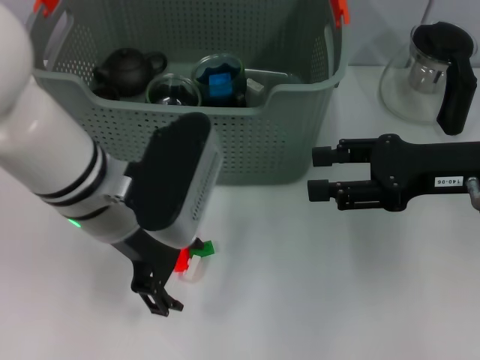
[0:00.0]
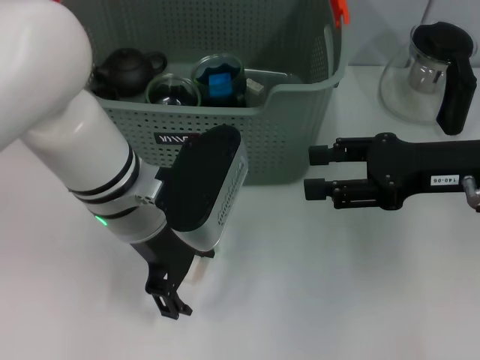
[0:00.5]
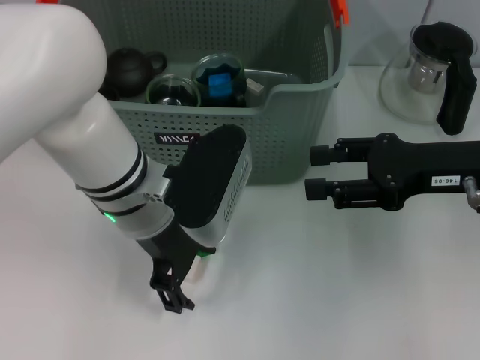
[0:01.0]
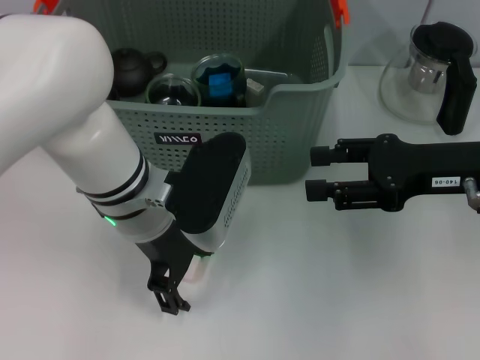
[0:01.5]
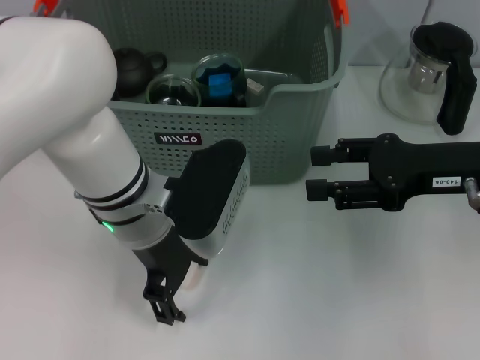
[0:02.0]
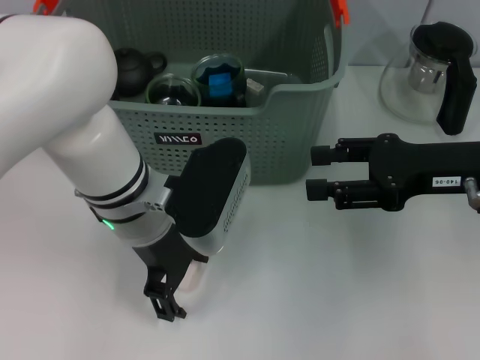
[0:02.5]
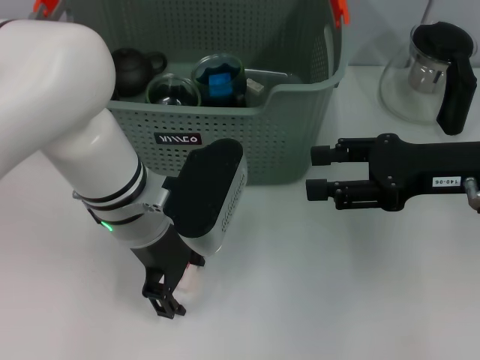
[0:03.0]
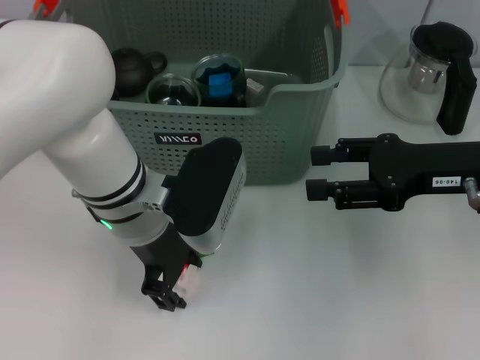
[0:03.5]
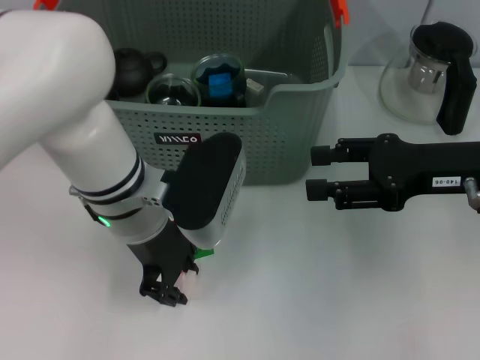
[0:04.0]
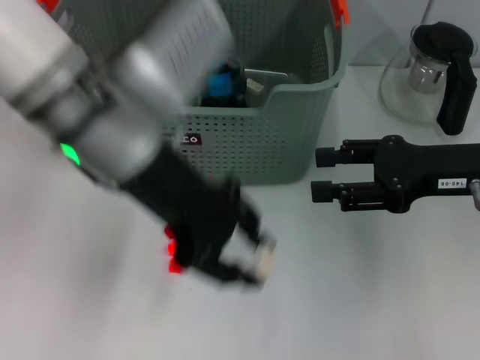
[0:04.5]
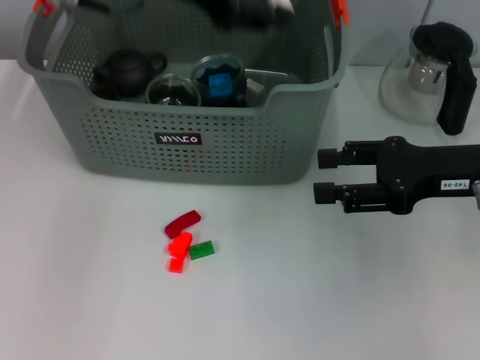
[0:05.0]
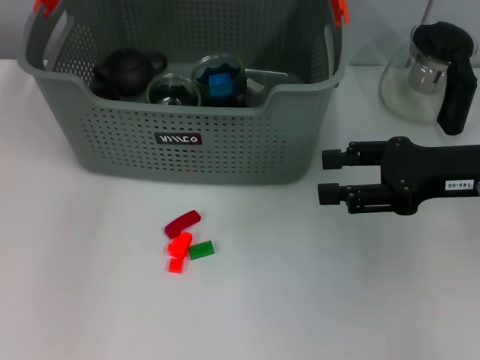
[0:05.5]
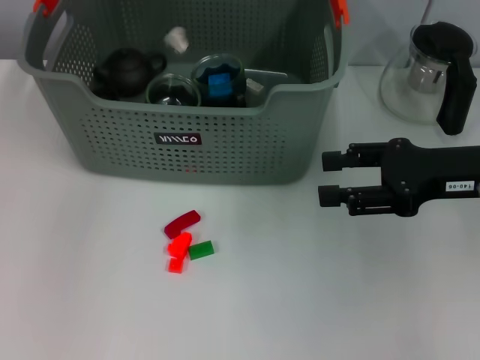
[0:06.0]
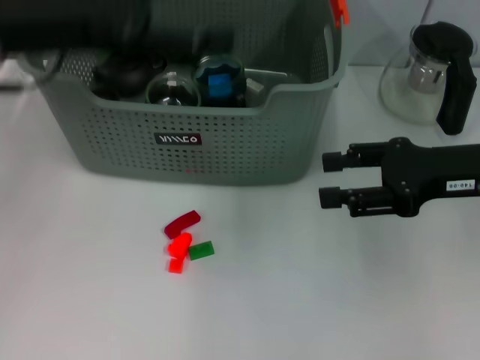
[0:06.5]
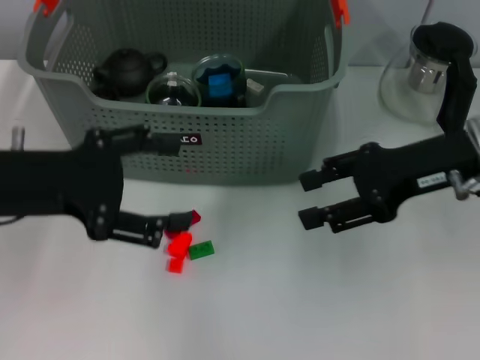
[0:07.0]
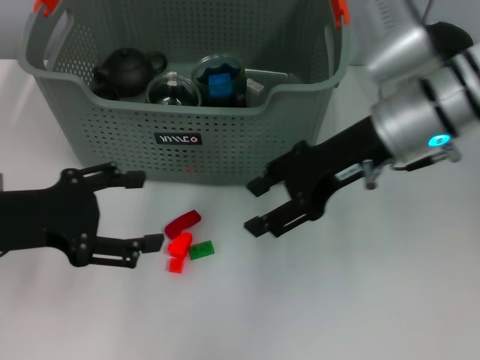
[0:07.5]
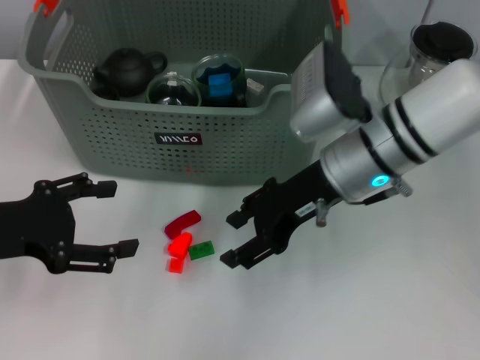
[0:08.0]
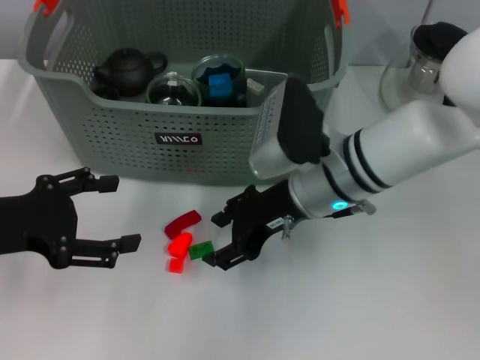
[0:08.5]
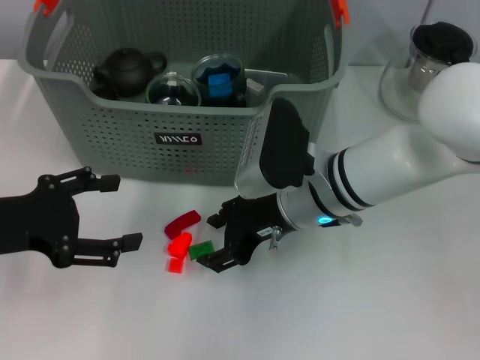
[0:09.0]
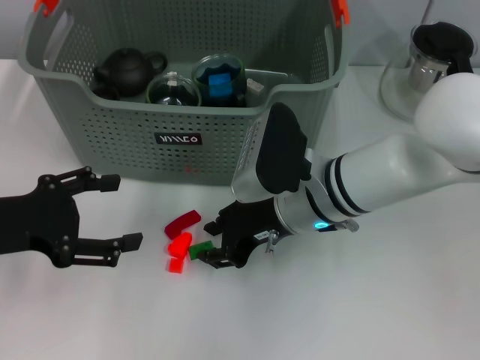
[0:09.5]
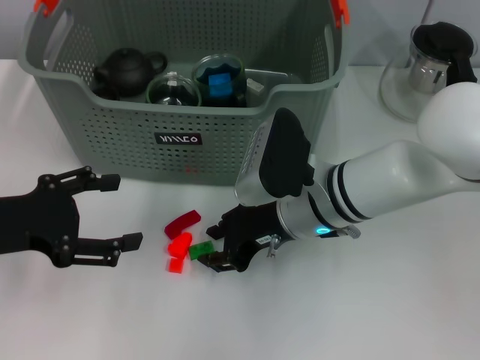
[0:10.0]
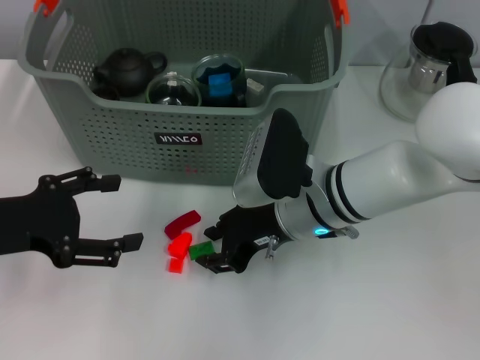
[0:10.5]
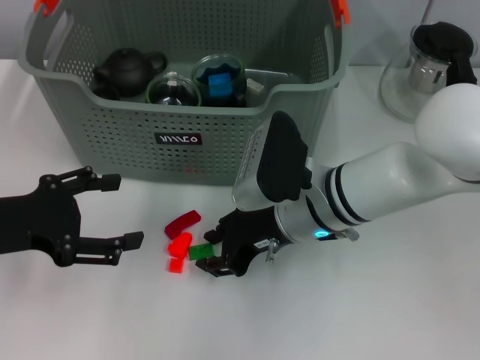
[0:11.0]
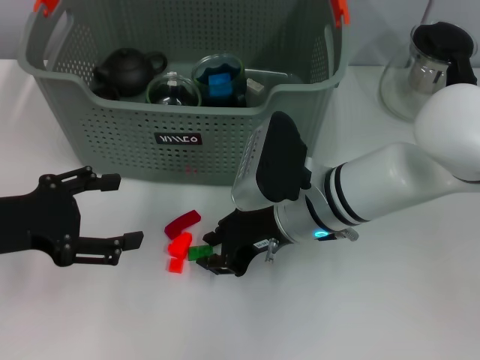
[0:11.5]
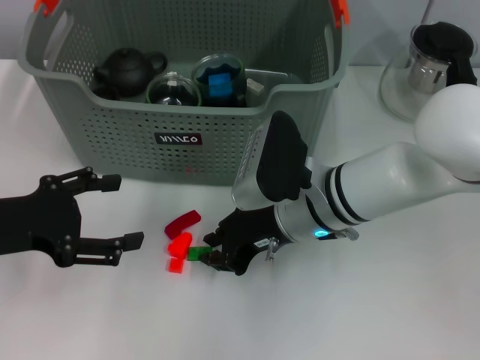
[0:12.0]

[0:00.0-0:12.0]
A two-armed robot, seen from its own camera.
Task of the whole recording: pick up the teacup on the table and place it into the storage bin, pick up the block on the table and place it into the storage bin.
Step, 0:00.0 to 0:03.5: Grasp the white block with left gripper.
Step, 0:04.0 to 0:06.0: Place the white block in the storage box with left gripper.
0:00.0 to 0:02.0: There are only small adjustments of the grippers.
0:02.0 to 0:04.0: The left gripper closes.
0:04.0 to 0:06.0: The left gripper moves upward, forward and to the left, approximately 20 cm.
0:06.0 to 0:08.0: The left gripper travels backward, downward and to the left by some 30 cm. The right gripper travels to the left by some 15 cm.
0:08.0 to 0:10.0: The right gripper shifts roughly 5 cm downward.
0:10.0 to 0:12.0: The two grippers keep their place.

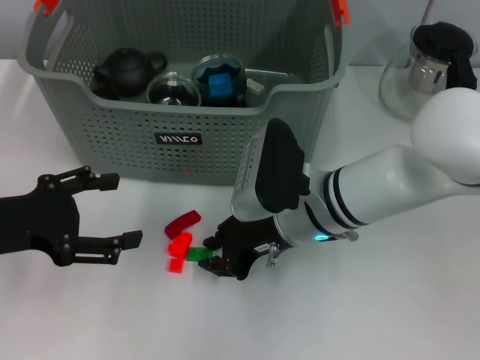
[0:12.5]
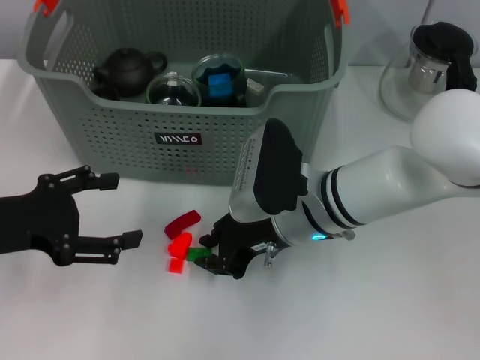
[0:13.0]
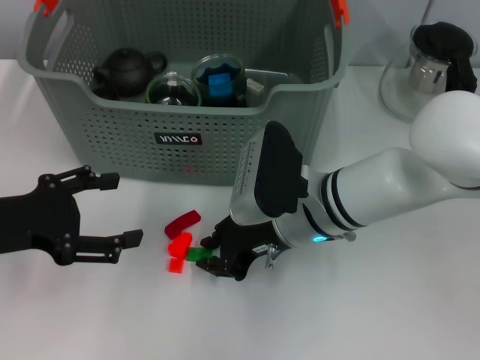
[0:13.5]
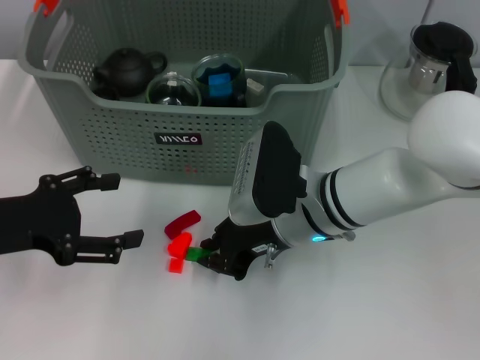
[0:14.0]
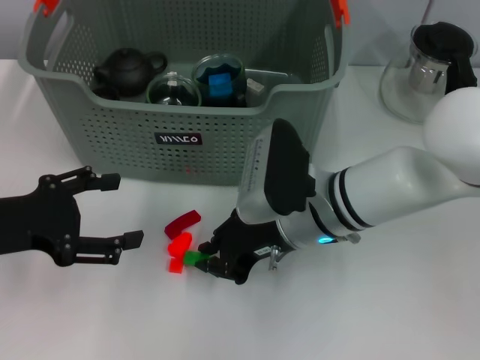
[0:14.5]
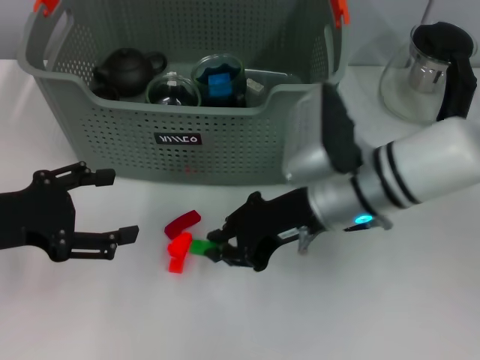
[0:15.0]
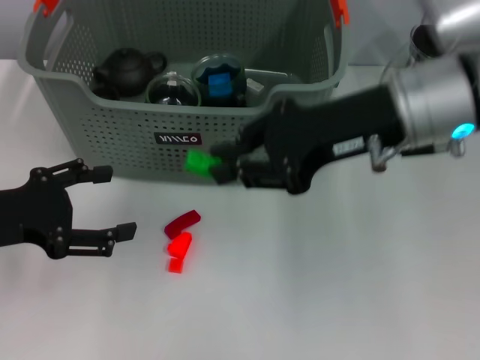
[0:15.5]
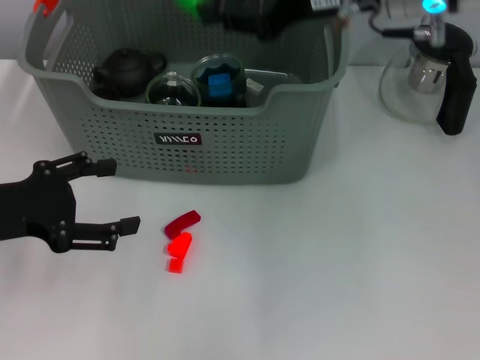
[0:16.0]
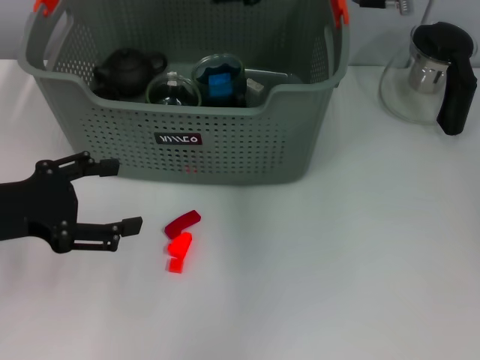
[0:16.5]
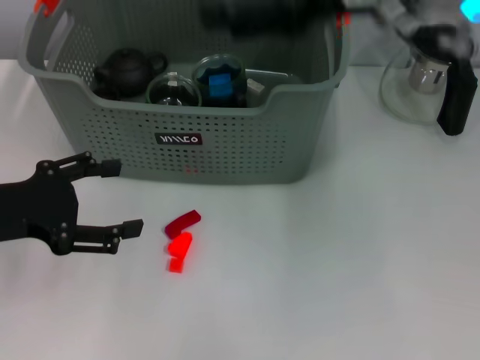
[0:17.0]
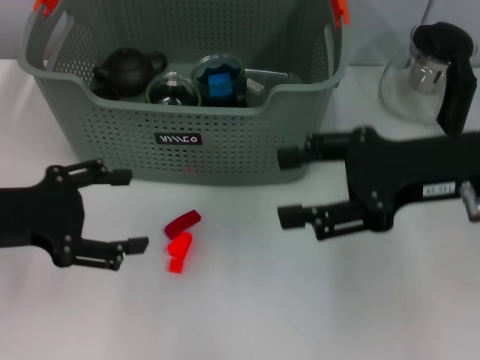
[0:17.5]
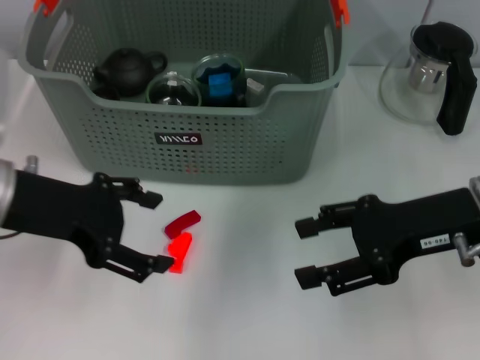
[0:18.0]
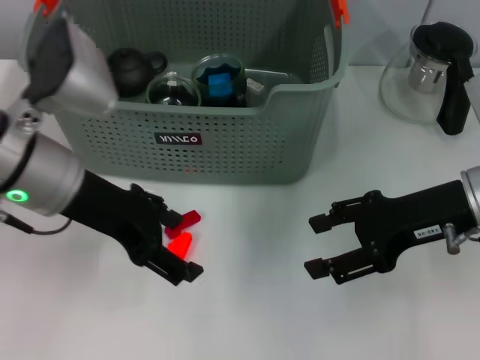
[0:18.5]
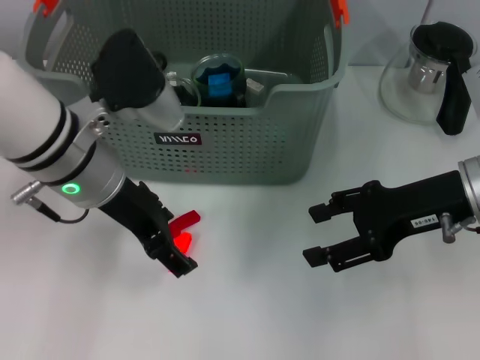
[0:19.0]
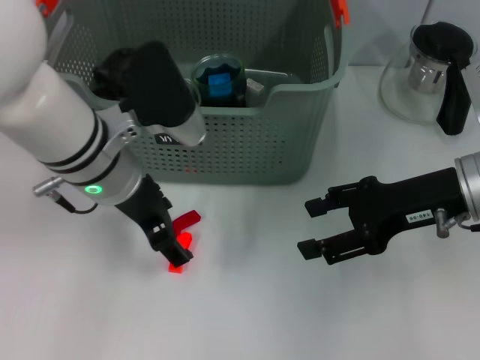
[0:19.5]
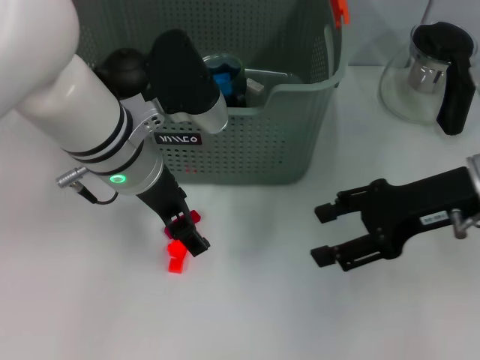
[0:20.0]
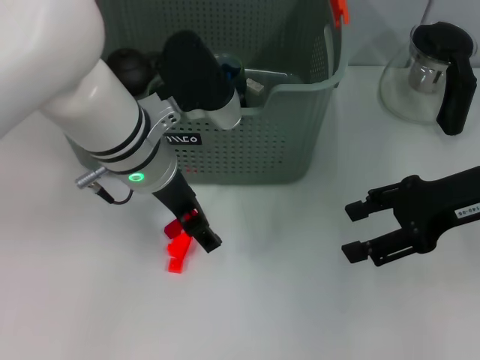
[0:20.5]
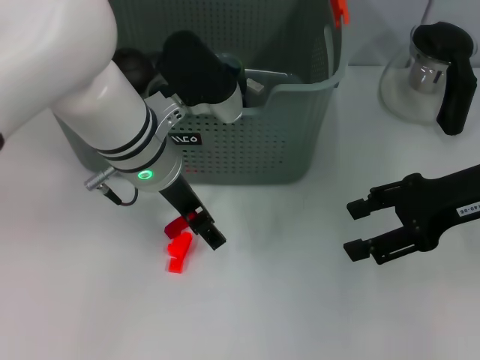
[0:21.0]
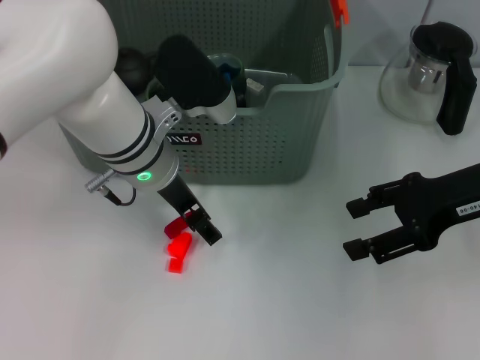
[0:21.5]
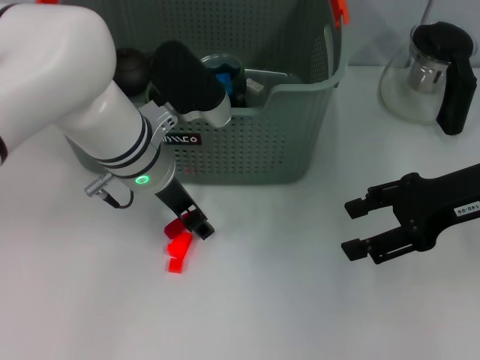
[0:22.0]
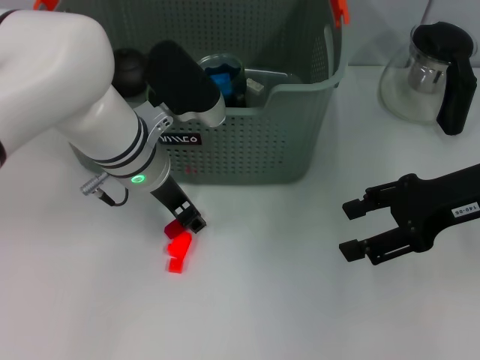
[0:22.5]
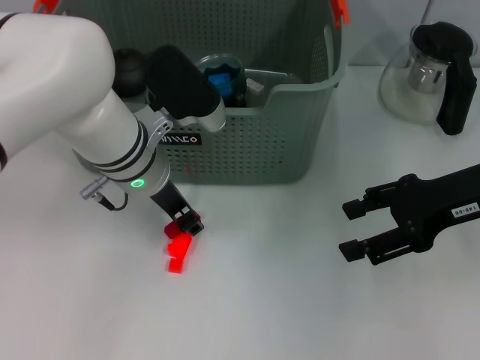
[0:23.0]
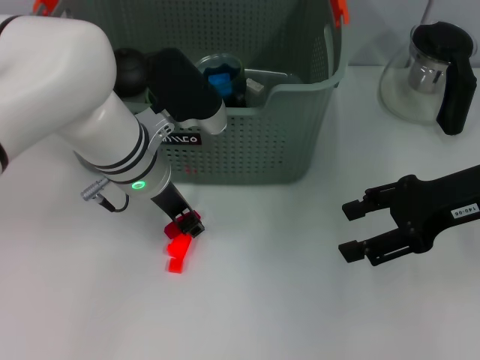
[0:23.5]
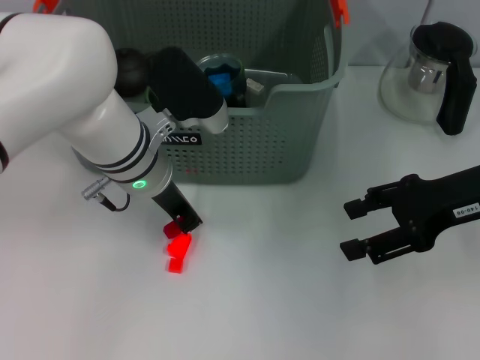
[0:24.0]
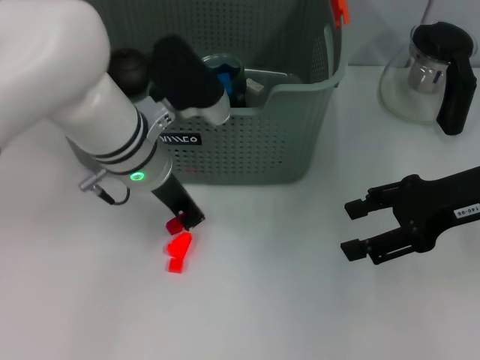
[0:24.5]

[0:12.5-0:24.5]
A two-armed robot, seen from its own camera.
Task of the whole recording: pick up the teacup on the table and place it into the storage bin, pick up the block on the table and place it into the storage bin.
Step, 0:14.5 to 0:16.5: Place the green block in the storage box with right gripper.
Step, 0:17.0 to 0:24.0: Grasp the red block with left gripper.
0:12.5 to 0:14.5: Both grippers stay about where they are.
0:14.5 to 0:16.5: The right gripper moves upward and forward, approximately 20 cm.
0:16.5 to 0:18.5: The right gripper travels downward, backward and to the right by approximately 20 cm, and opens its fingers, while the left gripper moves to the right and forward, some 10 cm.
0:18.5 to 0:20.5: The left gripper moves to the right, about 10 cm.
0:20.5 to 0:22.5: There are only small adjustments of the grippers.
0:22.5 to 0:24.5: The left gripper closes its fingers.

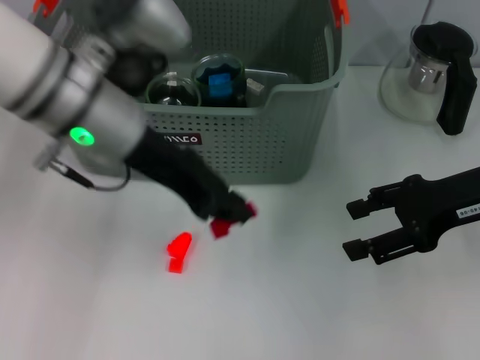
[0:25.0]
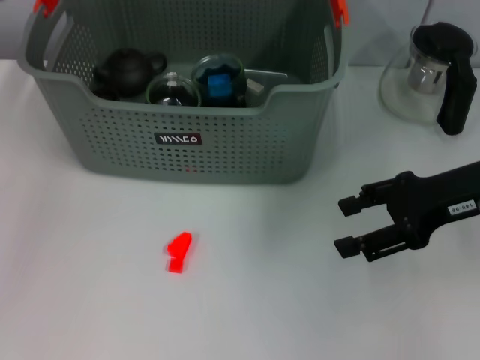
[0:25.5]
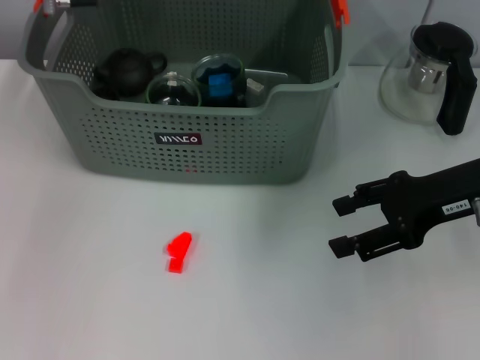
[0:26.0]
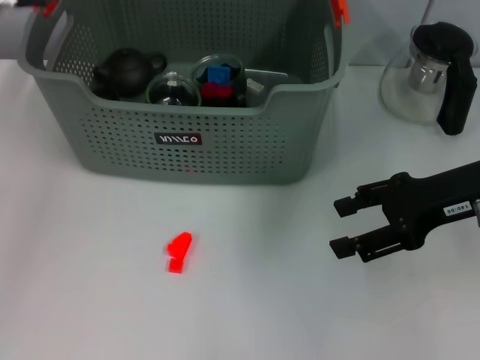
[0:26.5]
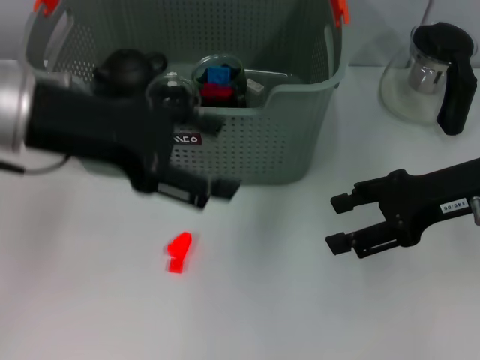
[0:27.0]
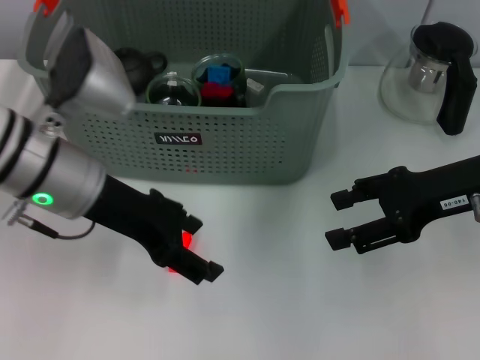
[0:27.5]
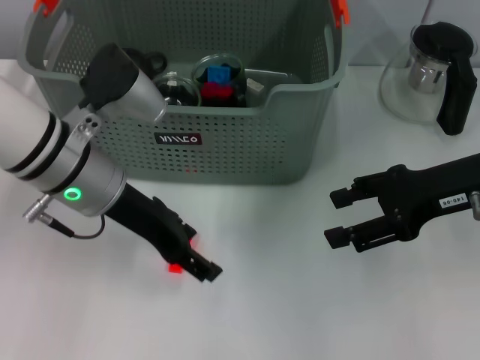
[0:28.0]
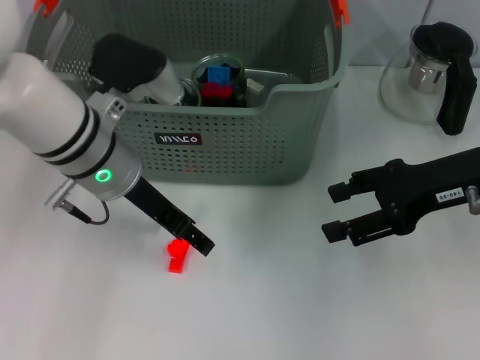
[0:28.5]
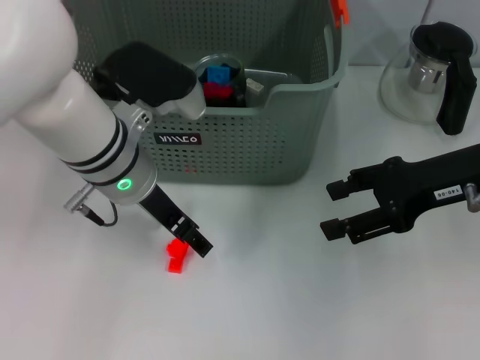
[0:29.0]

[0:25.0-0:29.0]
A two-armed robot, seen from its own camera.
Task of the whole recording: pick up the teacup on the table and place it into the storage bin, pick up the block on the table and place it into the storage bin.
0:25.0 to 0:27.0: The left gripper heads to the left, covering some 5 cm, moves approximately 10 cm forward and comes back, and opens its fingers.
0:27.0 to 0:29.0: The left gripper is displaced downward and to the right by roughly 15 cm.